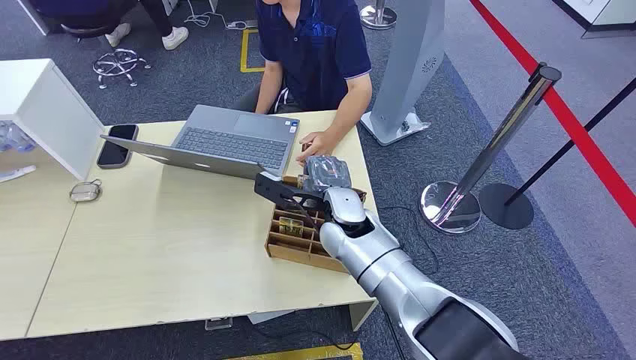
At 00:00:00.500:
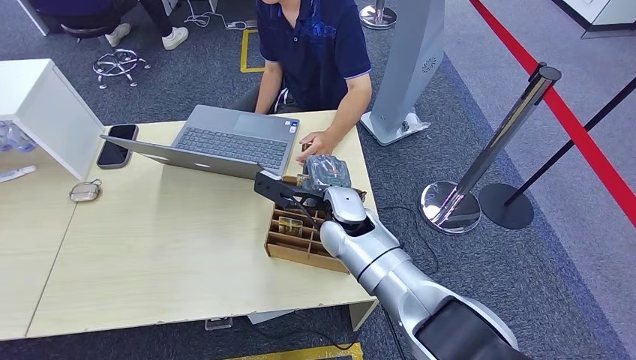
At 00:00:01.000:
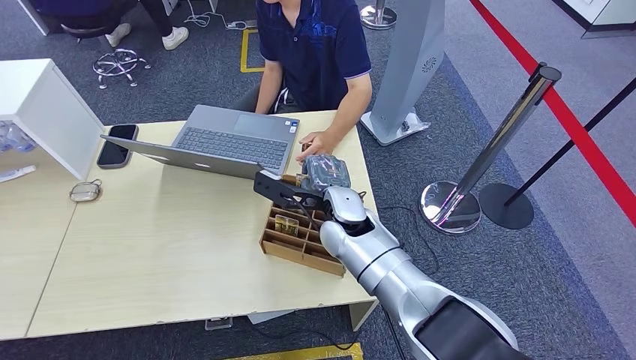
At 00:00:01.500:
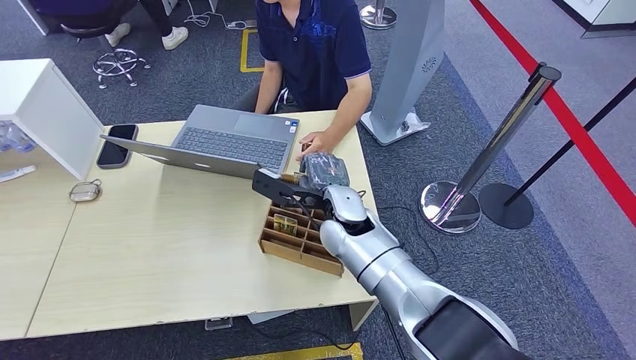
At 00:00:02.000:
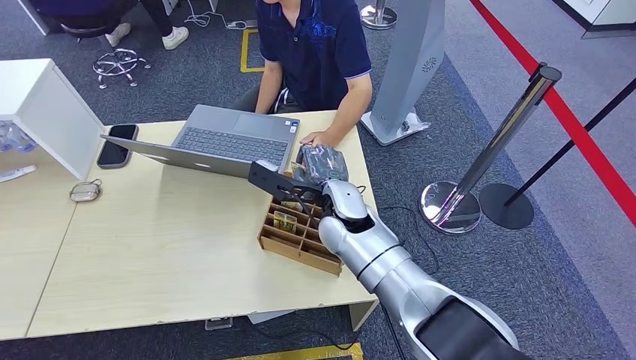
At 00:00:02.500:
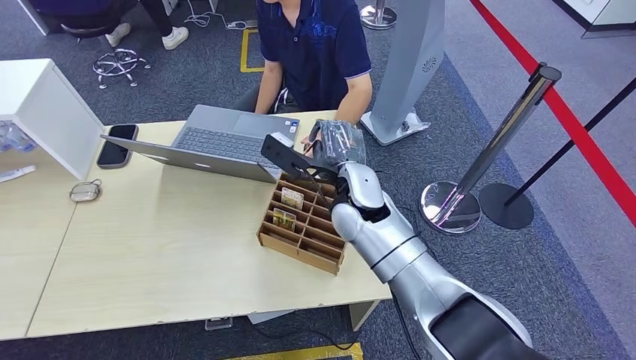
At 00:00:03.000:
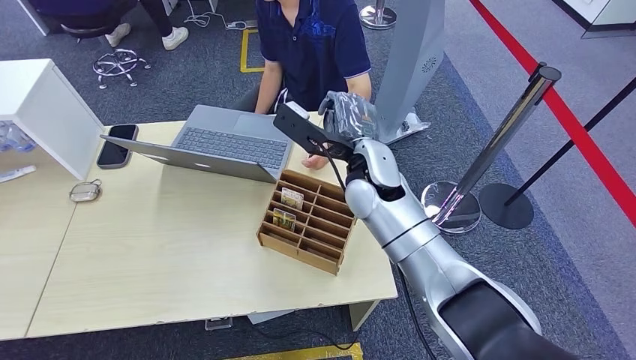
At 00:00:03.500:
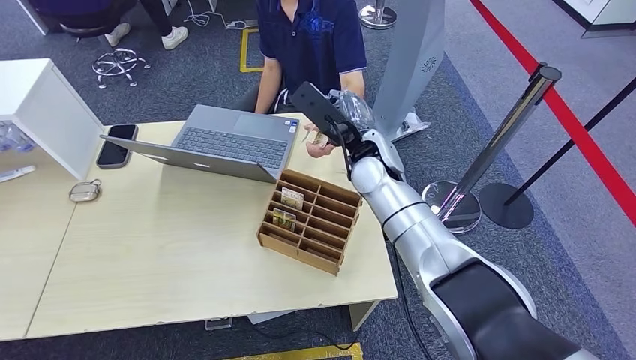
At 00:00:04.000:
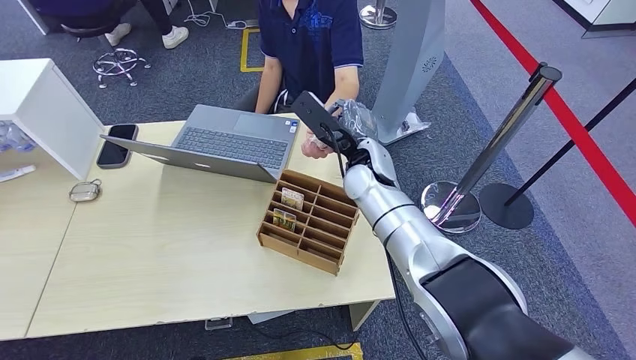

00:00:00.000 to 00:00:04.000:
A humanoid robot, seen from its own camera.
Step, 00:00:00.000 to 00:00:02.000: Pick up the room card from the card holder.
00:00:02.000 to 00:00:04.000: The left hand goes approximately 10 cm forward and to the right. The right hand ends up approximately 5 cm from where it was.
